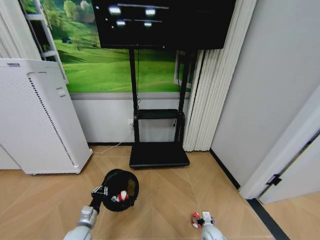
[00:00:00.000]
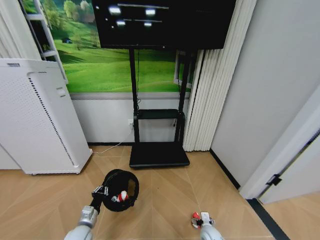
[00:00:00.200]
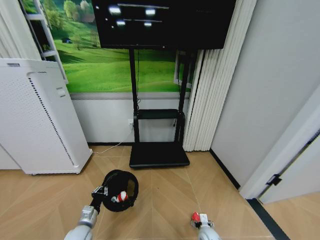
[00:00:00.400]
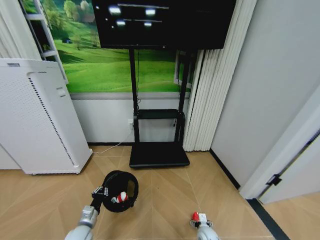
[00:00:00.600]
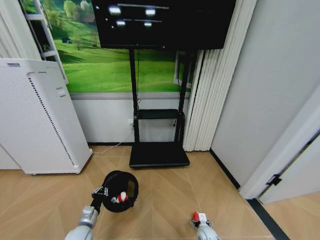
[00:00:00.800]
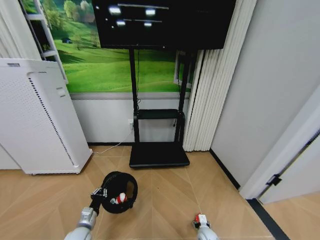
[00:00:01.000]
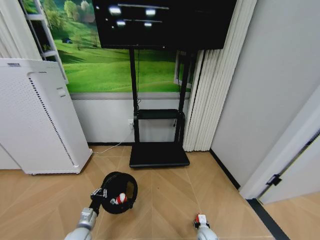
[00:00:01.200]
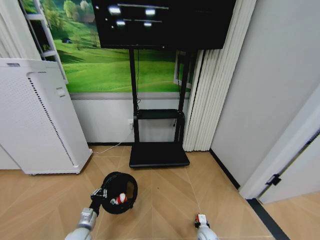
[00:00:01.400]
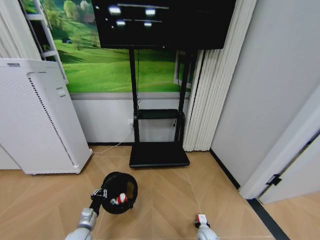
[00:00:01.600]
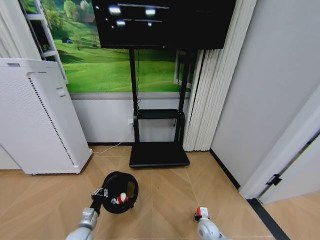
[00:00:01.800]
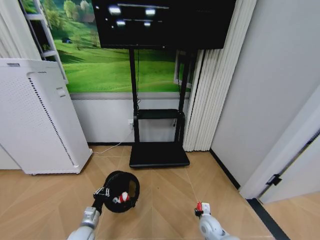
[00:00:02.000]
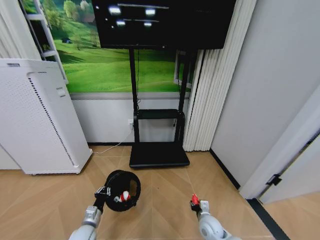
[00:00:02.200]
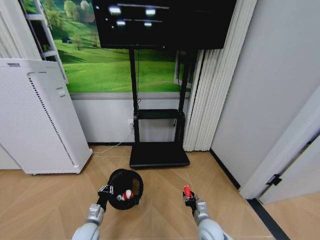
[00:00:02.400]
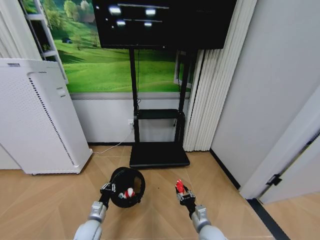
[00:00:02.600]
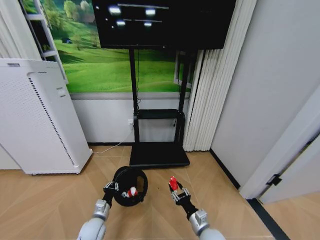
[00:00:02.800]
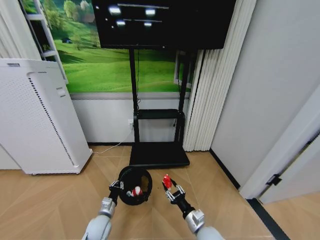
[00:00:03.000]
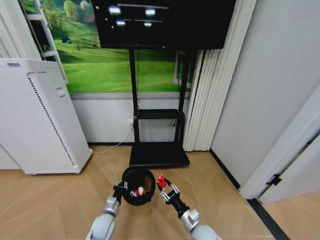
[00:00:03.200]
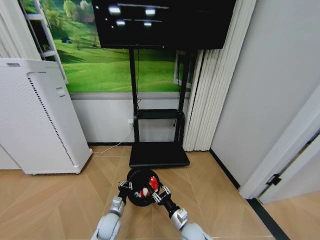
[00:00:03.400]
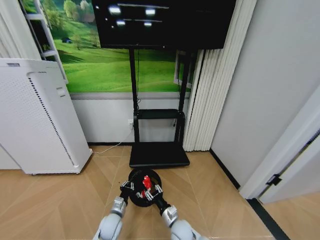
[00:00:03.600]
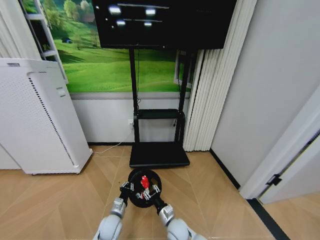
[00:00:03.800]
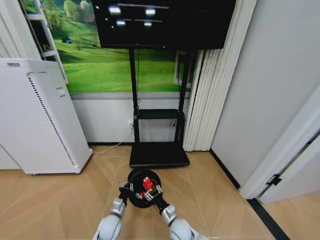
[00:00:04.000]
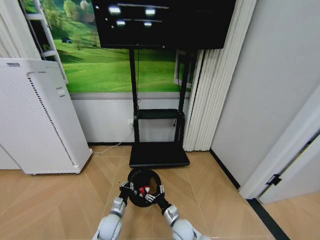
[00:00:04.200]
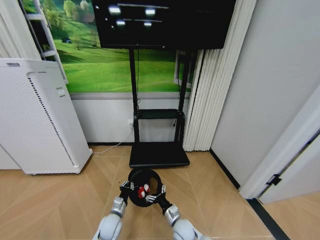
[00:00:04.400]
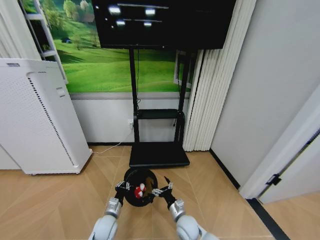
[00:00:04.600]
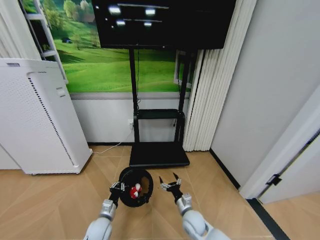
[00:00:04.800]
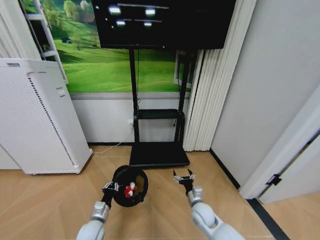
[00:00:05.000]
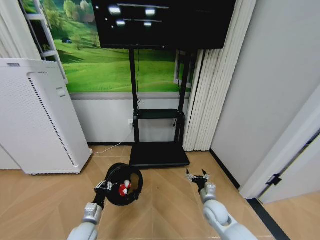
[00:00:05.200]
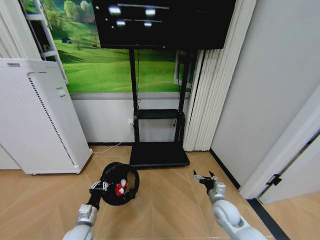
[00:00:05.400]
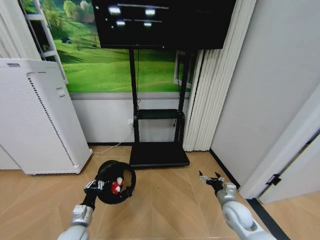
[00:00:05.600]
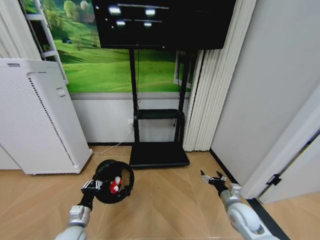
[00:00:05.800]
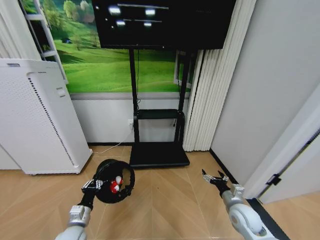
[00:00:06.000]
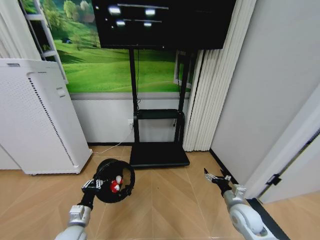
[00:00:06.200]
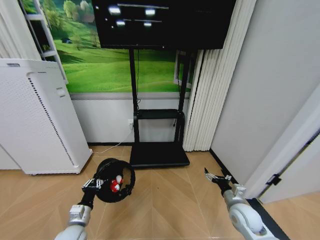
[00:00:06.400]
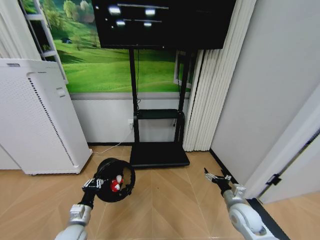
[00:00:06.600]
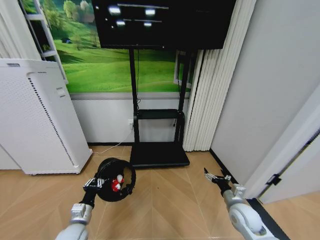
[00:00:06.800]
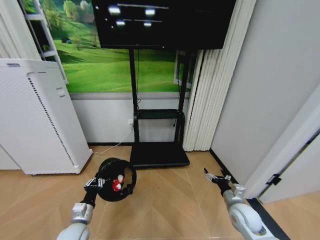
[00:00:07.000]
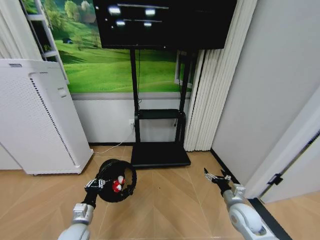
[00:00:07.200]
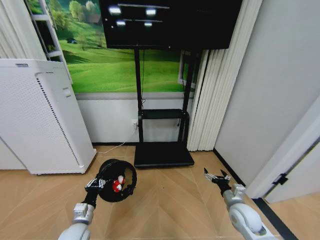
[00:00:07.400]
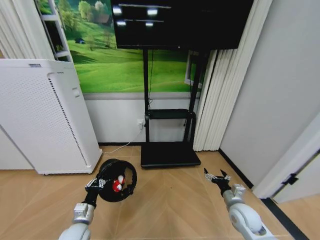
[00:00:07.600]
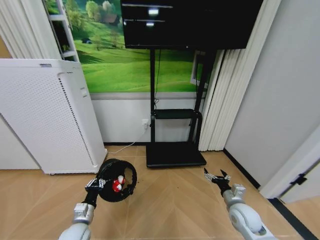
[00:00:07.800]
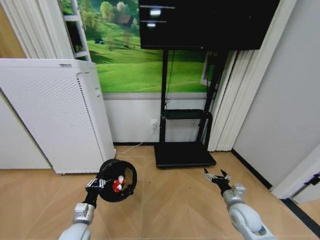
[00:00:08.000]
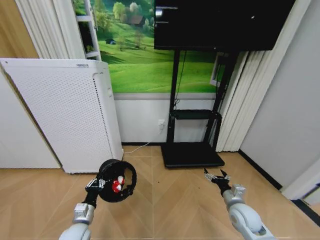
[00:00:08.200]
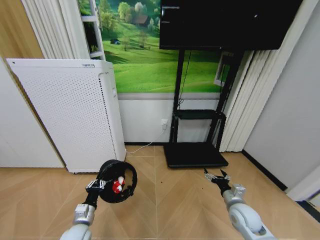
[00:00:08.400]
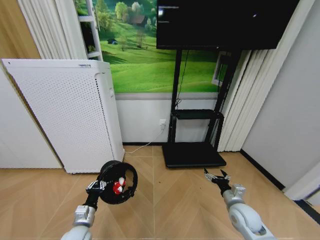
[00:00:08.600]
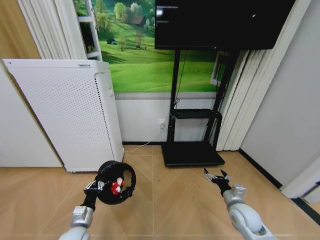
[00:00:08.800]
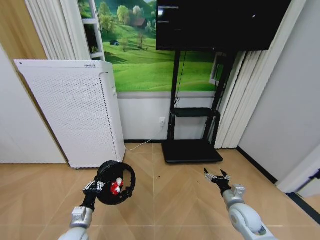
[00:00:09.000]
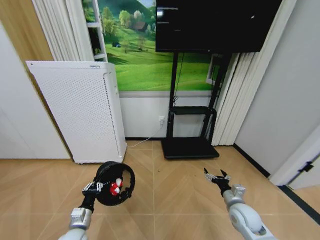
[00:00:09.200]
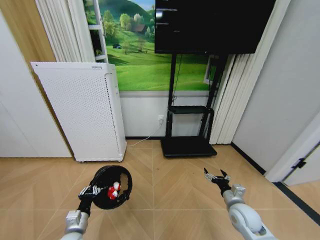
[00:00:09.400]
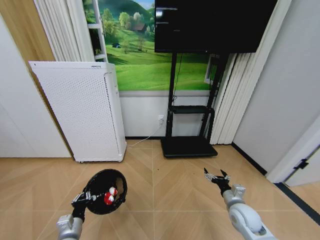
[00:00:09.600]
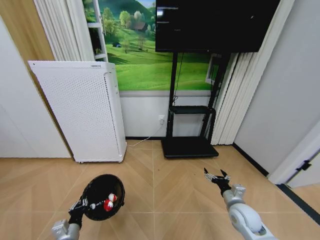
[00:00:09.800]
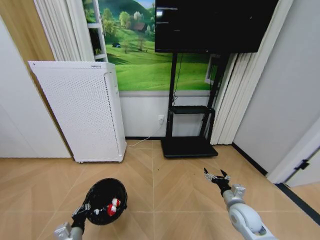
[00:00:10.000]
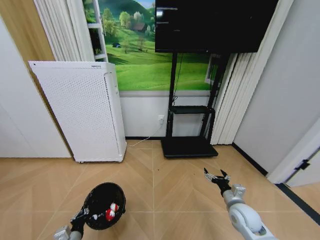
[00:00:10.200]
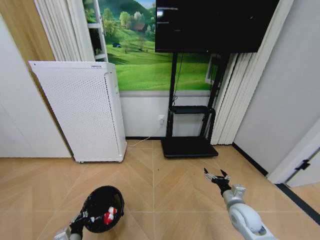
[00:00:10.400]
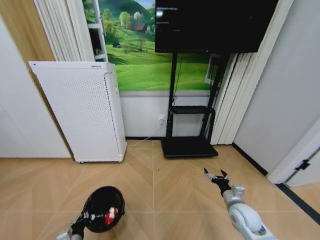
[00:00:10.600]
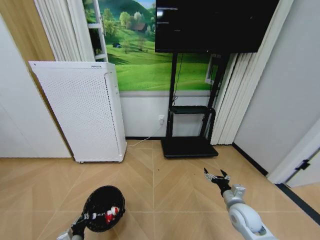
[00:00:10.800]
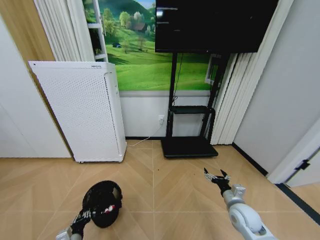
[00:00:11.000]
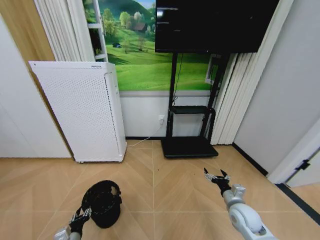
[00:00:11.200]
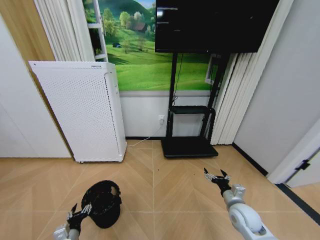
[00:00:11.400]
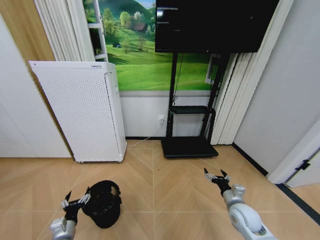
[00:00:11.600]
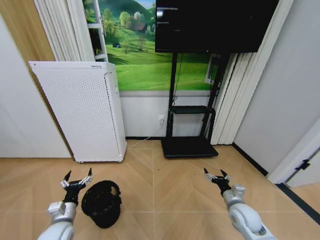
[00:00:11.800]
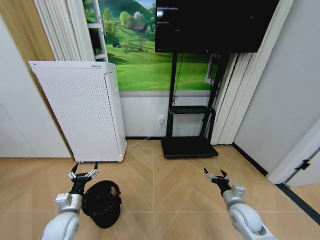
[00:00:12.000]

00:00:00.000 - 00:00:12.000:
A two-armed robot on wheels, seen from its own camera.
Task of the whole recording: Pick up the trash bin and place the garbage on the floor into it.
00:00:00.000 - 00:00:01.600: The right gripper closes.
00:00:01.600 - 00:00:03.000: The right gripper shifts about 20 cm upward, while the left gripper shifts approximately 5 cm to the right.
00:00:03.000 - 00:00:04.400: The right gripper goes some 10 cm to the left and downward, and opens its fingers.
00:00:04.400 - 00:00:06.000: The left gripper goes roughly 15 cm to the left, upward and backward, while the right gripper shifts about 25 cm to the right and upward.
00:00:09.000 - 00:00:10.400: The left gripper heads downward and backward, covering about 10 cm.
00:00:10.400 - 00:00:12.000: The left gripper moves upward and forward, some 15 cm, and opens up.

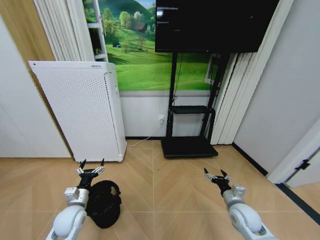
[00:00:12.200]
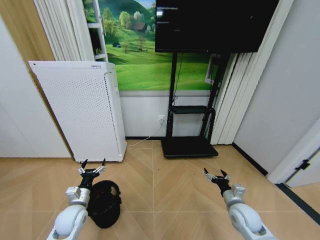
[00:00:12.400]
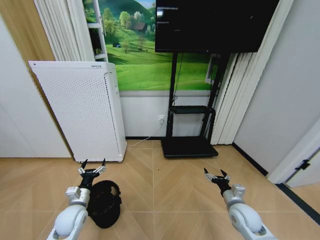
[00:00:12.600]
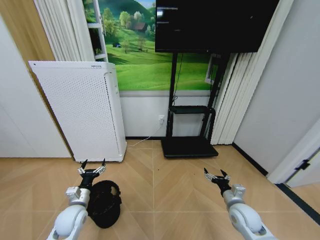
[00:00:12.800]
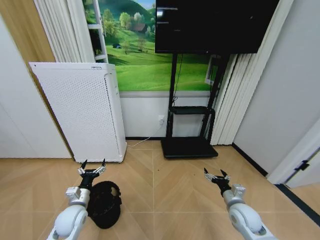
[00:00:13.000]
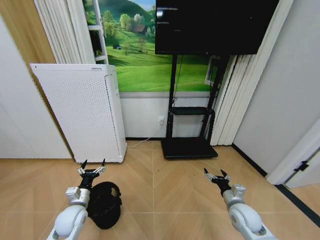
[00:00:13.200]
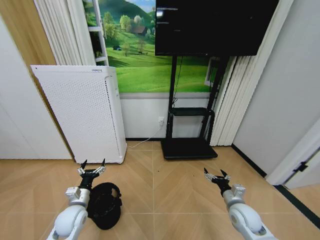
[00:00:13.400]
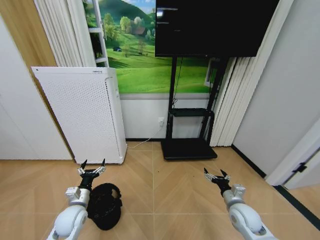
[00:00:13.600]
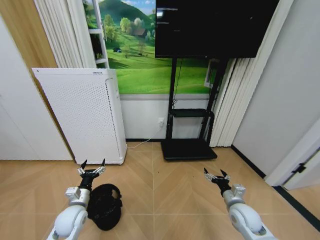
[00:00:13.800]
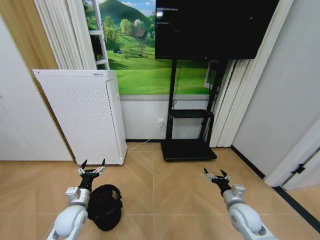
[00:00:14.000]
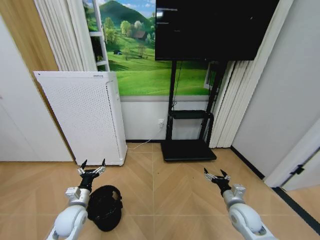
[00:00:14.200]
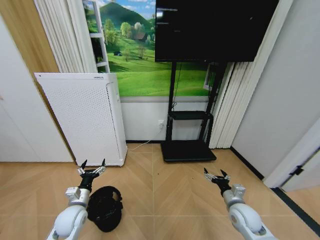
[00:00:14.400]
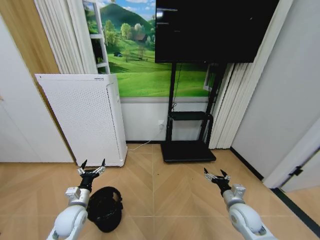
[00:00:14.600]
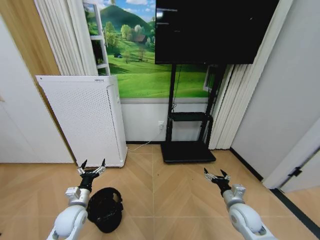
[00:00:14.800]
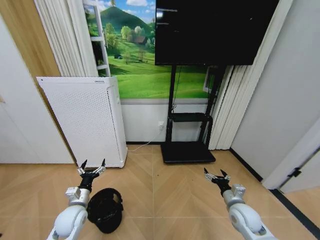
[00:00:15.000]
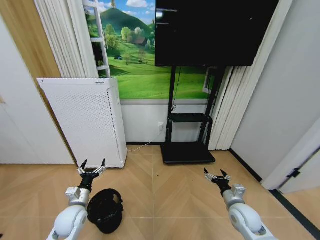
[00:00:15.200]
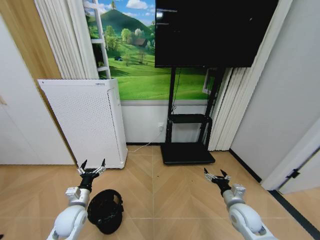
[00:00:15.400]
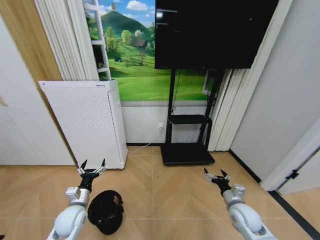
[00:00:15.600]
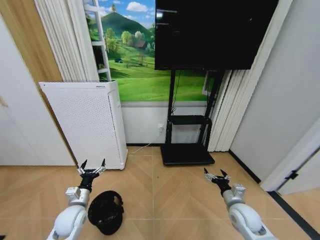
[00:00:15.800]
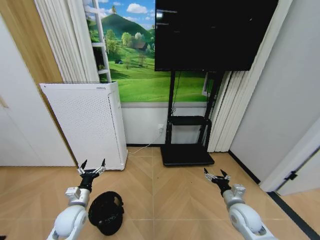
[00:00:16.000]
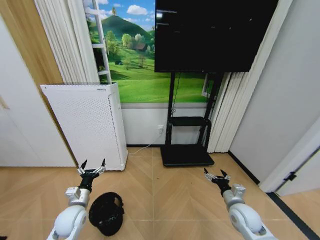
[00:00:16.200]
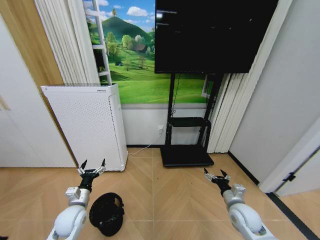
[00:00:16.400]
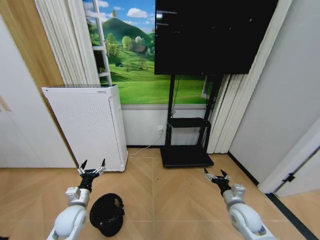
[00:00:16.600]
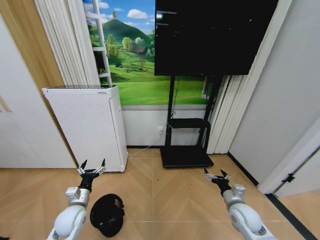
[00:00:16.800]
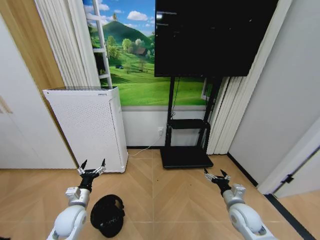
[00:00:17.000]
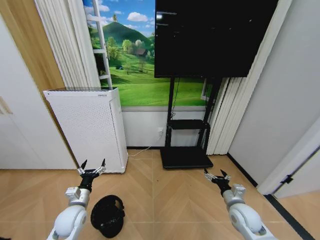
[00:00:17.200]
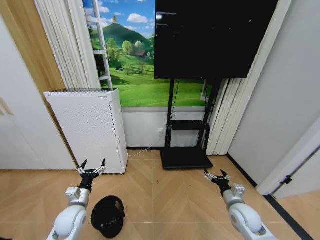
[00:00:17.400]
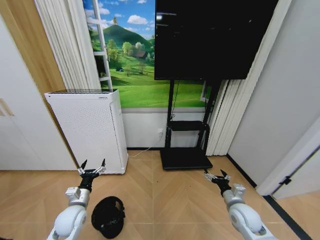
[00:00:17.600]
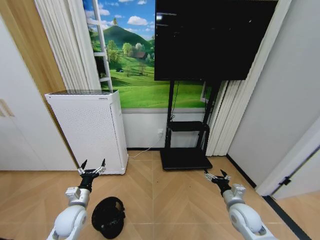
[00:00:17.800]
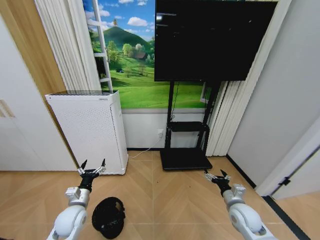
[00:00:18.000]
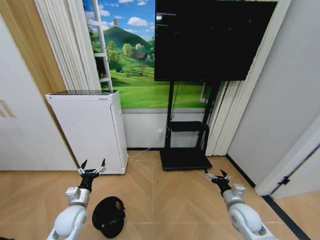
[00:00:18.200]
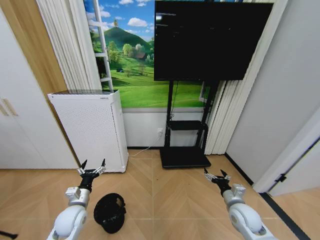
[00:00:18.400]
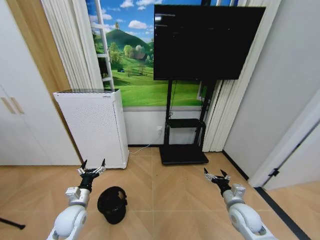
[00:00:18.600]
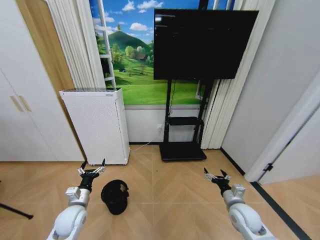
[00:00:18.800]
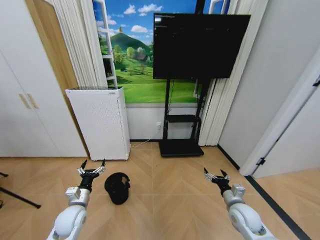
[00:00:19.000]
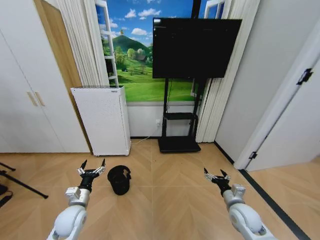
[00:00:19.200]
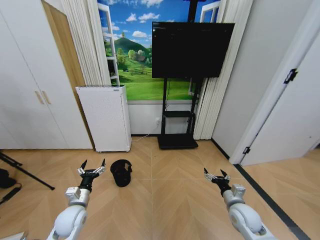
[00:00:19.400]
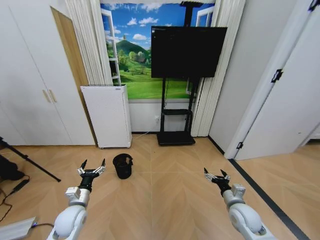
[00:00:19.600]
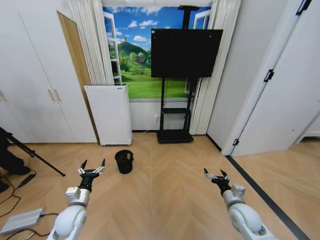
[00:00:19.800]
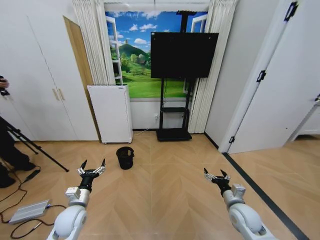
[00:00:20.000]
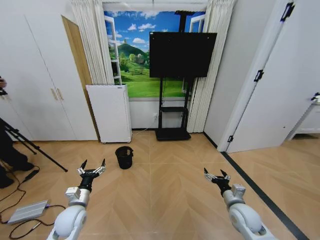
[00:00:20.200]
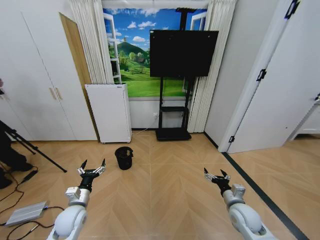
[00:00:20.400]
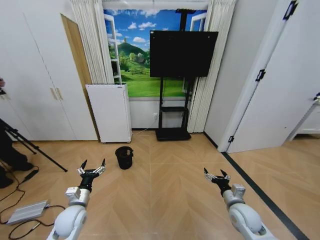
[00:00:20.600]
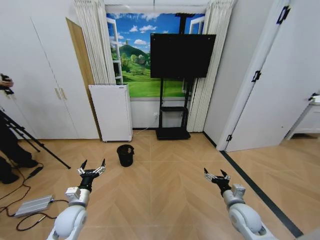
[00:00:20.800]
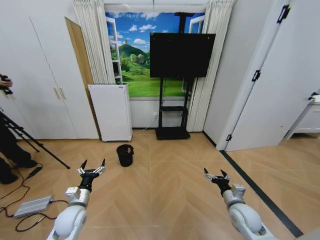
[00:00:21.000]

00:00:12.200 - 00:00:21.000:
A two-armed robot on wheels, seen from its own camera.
Task of the whole recording: Pick up the trash bin and place the garbage on the floor into it.
00:00:12.200 - 00:00:18.000: Both grippers stay about where they are.
